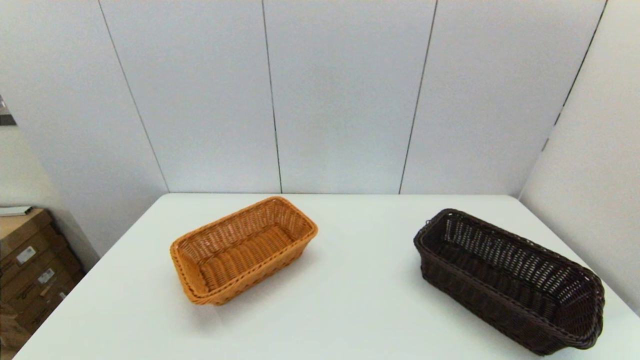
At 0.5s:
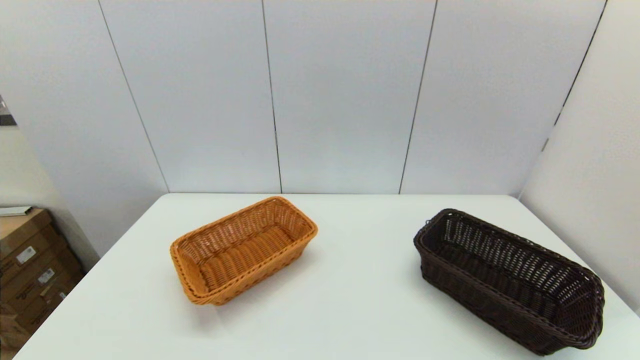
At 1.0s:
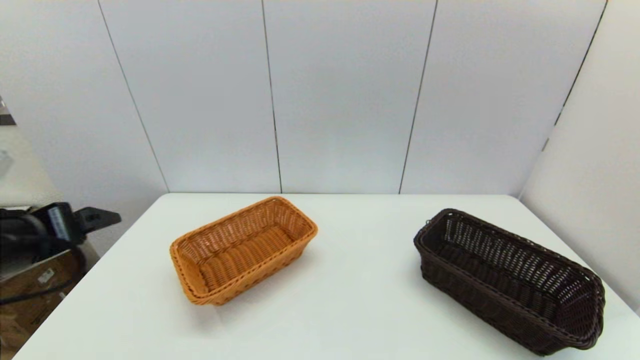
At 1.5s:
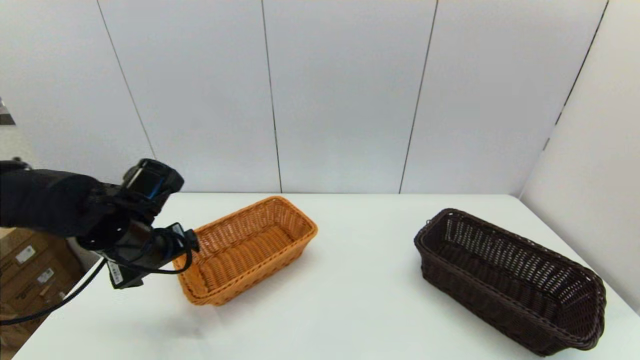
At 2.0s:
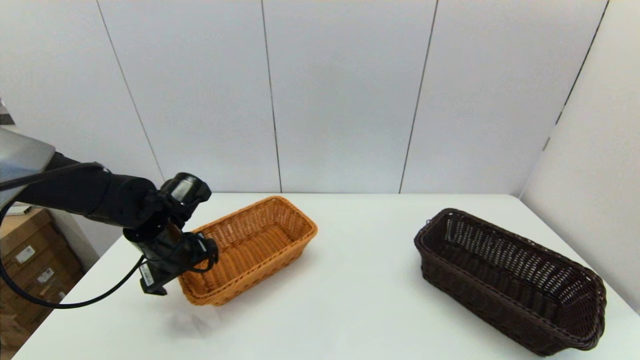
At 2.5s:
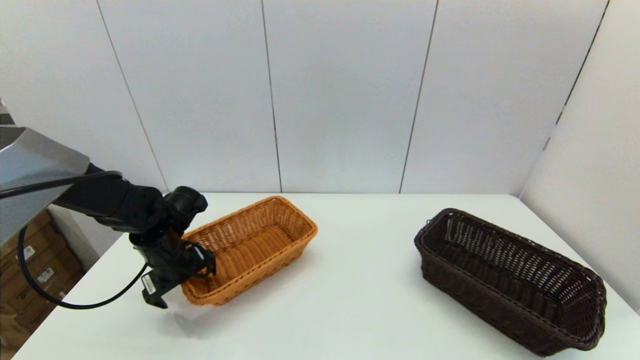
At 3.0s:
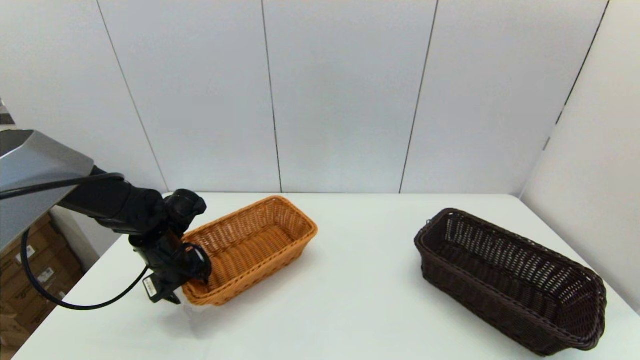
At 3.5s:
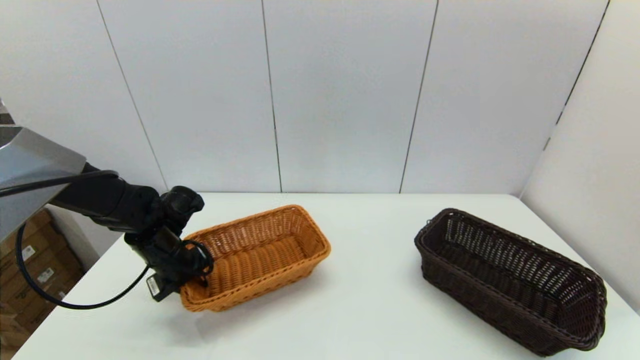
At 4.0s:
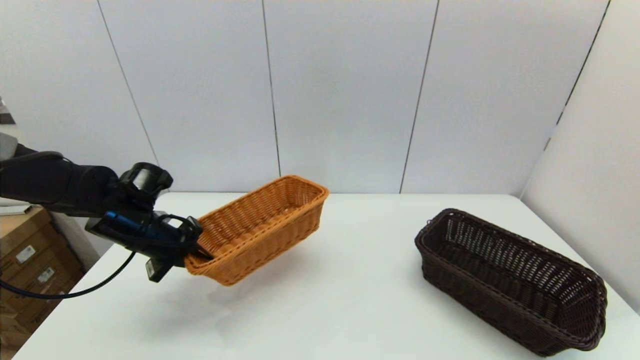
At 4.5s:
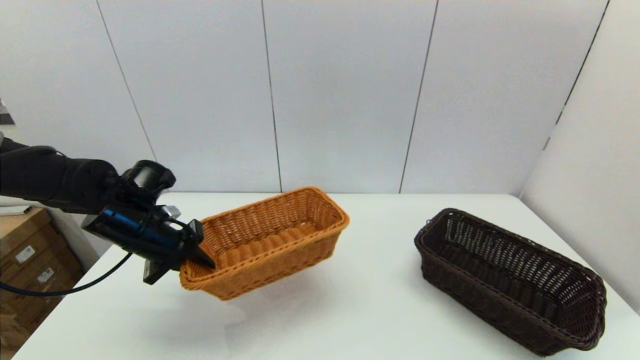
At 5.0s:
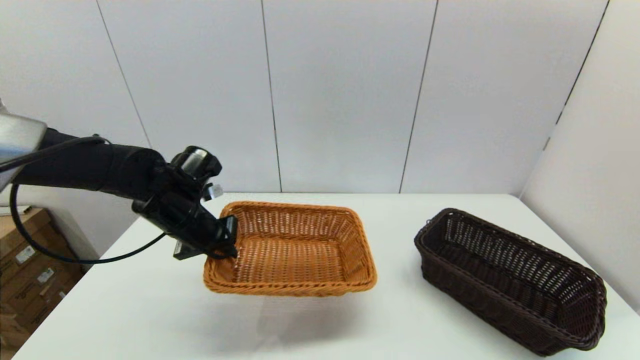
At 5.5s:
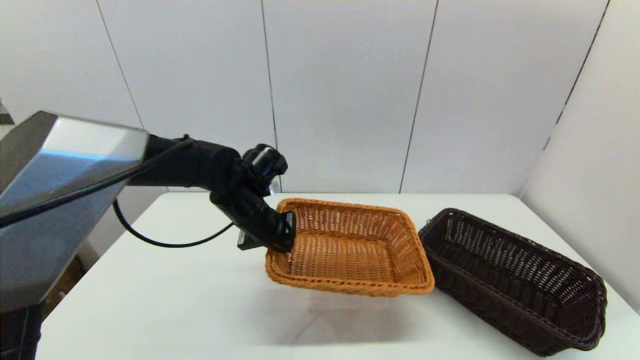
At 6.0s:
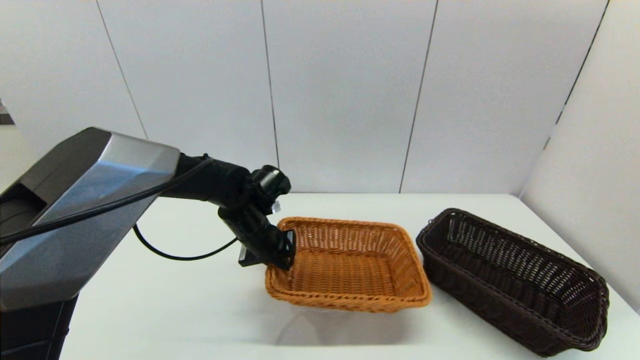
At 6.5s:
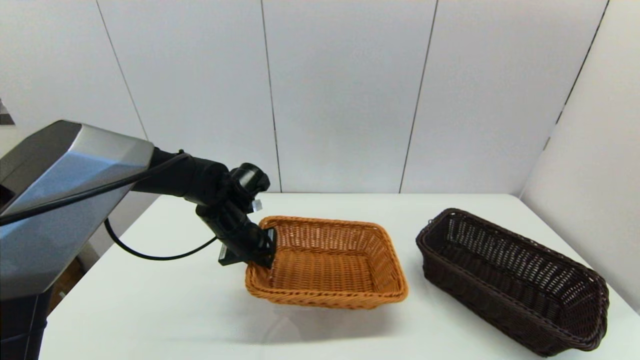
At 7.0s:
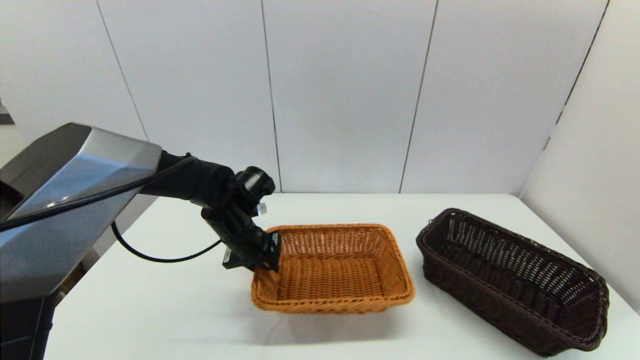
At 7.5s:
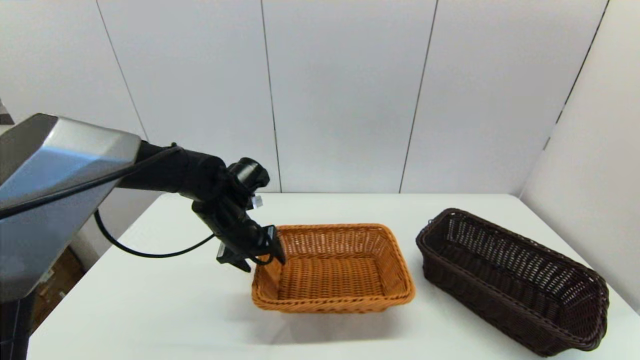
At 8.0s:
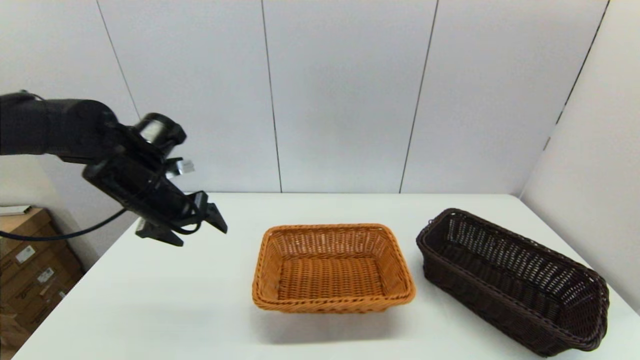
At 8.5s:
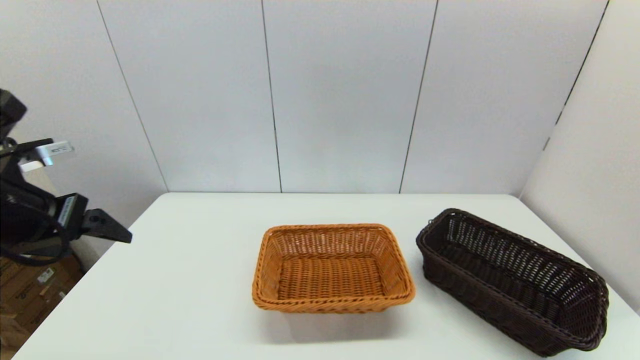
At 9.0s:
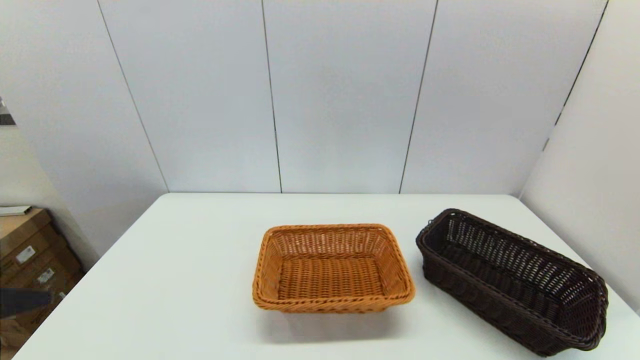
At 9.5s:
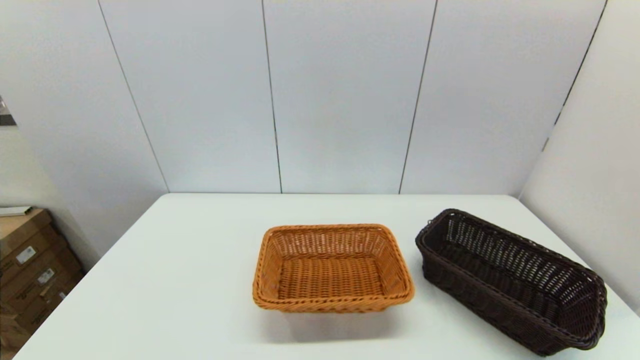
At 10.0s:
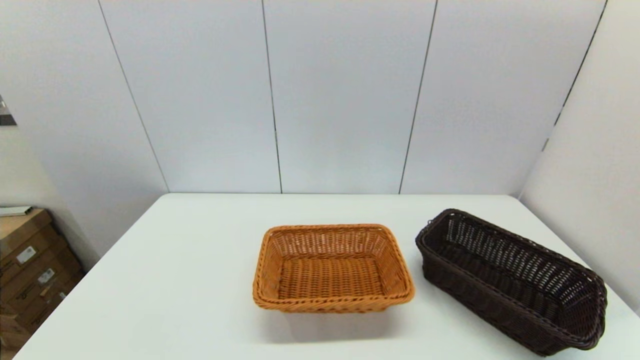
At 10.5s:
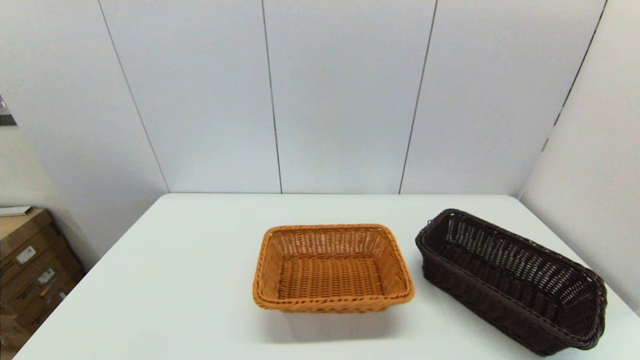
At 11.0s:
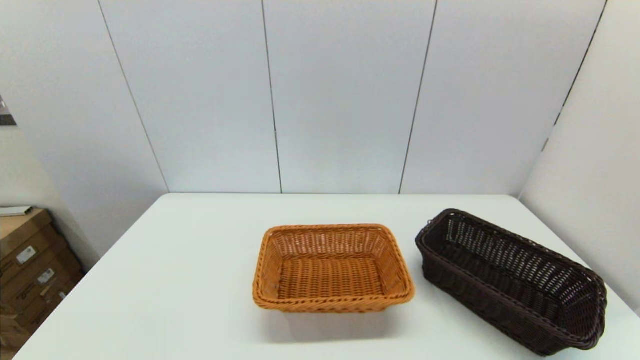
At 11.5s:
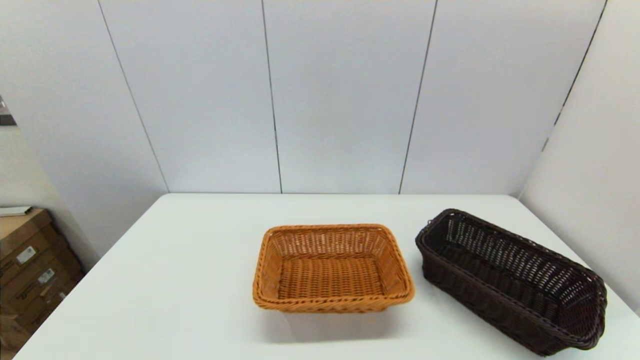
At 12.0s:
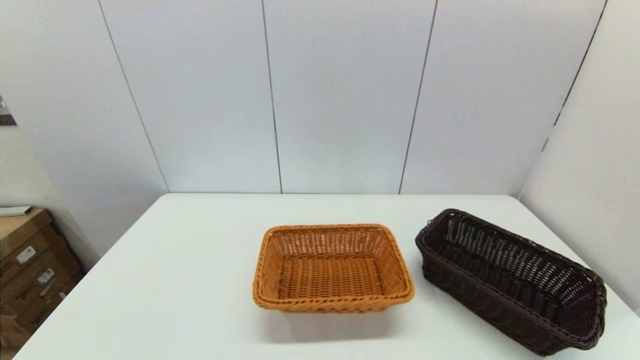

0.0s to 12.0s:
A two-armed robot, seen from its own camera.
Task of the whole recording: stack a basket on top of another basket.
Step, 0.0s to 3.5s: Grasp the light basket with the left gripper.
Step, 4.0s to 7.5s: Place the light basket on the middle of the table with the left gripper.
0.0s to 2.0s: The left gripper travels forward by some 35 cm.
2.0s to 4.0s: The left gripper closes.
4.0s to 6.0s: The left gripper goes approximately 15 cm to the right.
6.0s to 8.0s: The left gripper shifts roughly 15 cm to the left and upward, and opens up.
8.0s to 10.0s: The left gripper is displaced backward by roughly 40 cm.

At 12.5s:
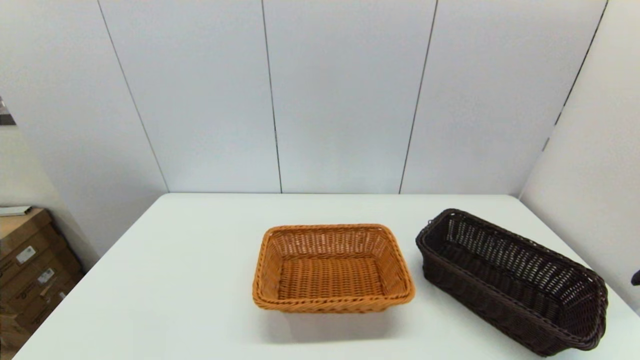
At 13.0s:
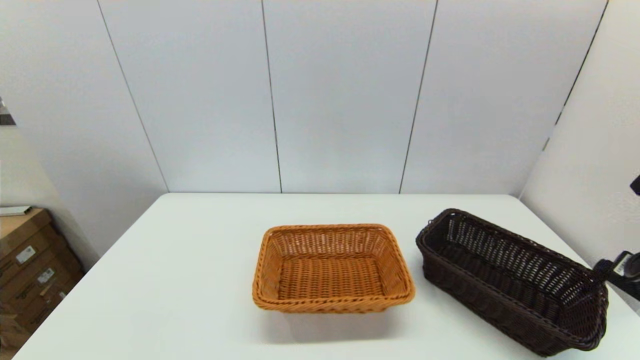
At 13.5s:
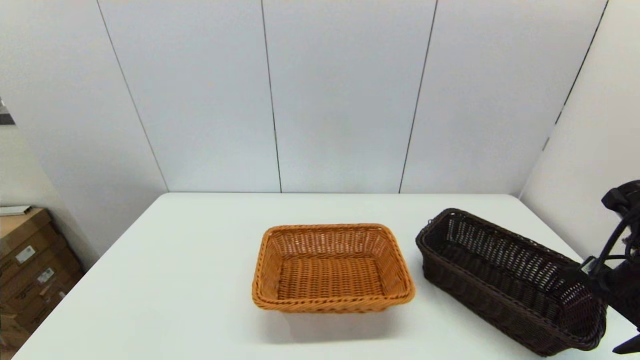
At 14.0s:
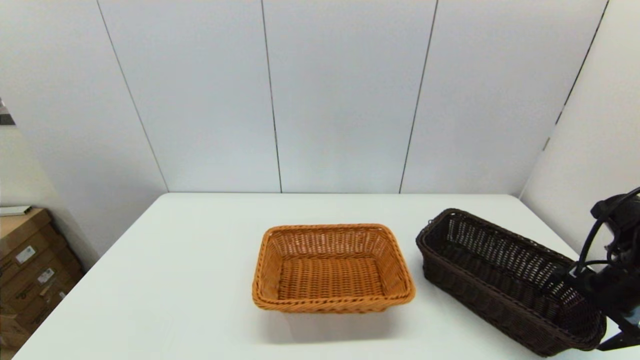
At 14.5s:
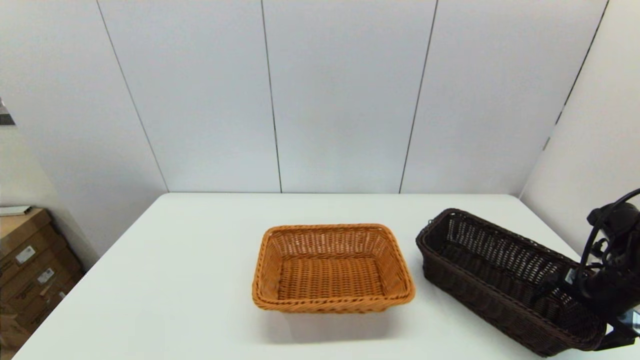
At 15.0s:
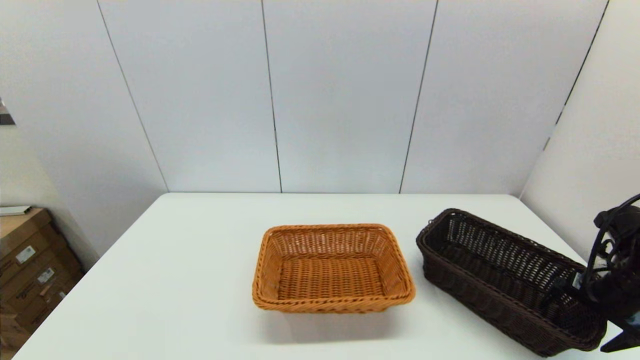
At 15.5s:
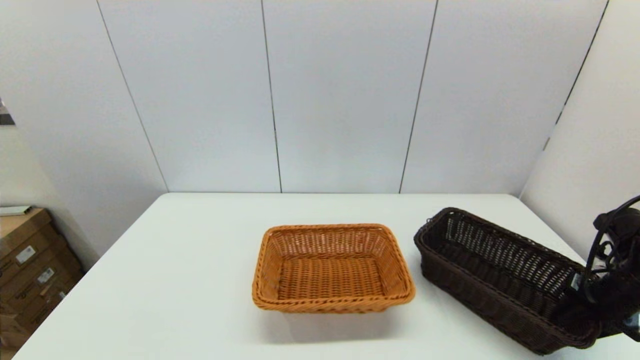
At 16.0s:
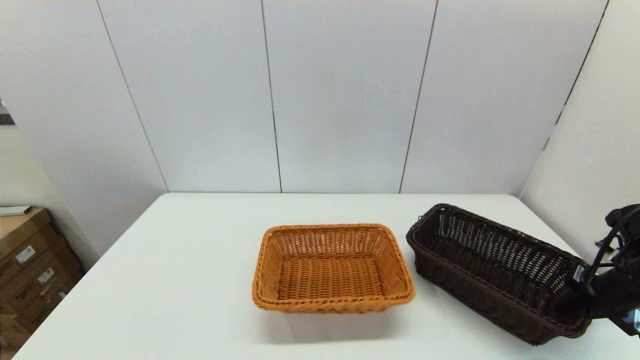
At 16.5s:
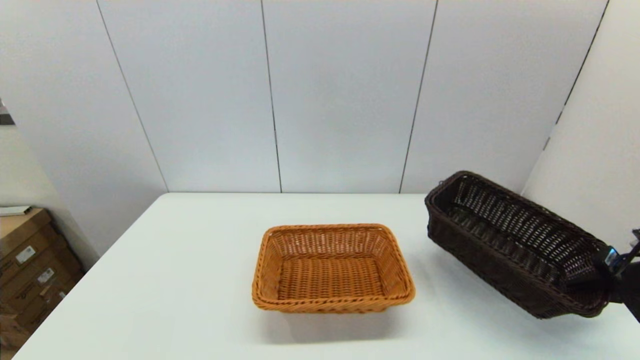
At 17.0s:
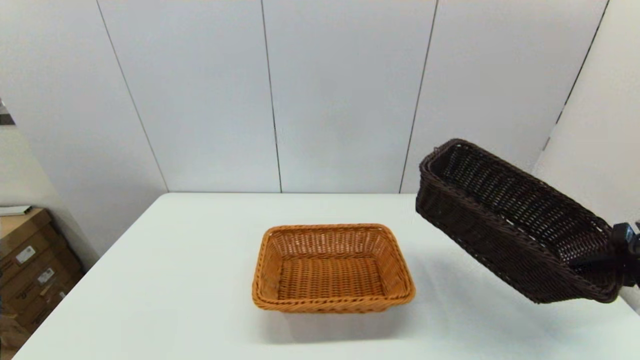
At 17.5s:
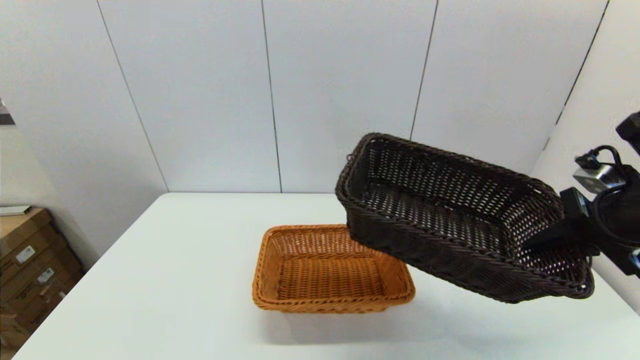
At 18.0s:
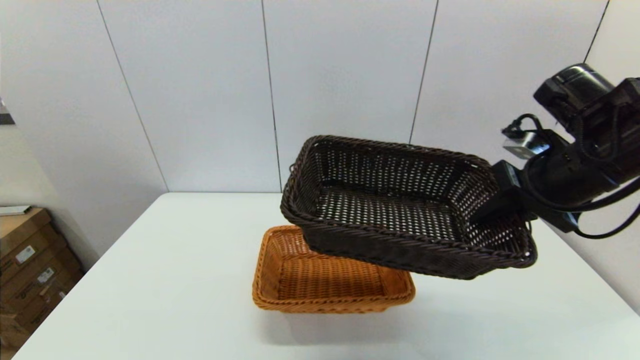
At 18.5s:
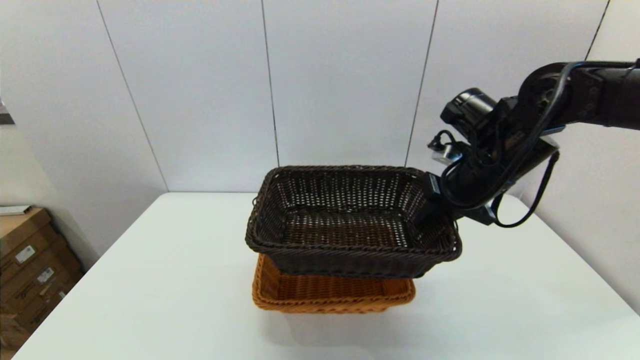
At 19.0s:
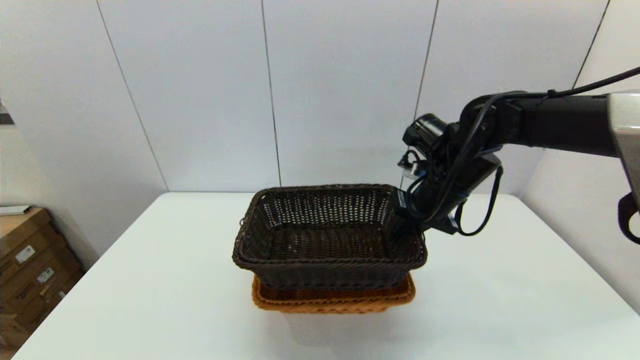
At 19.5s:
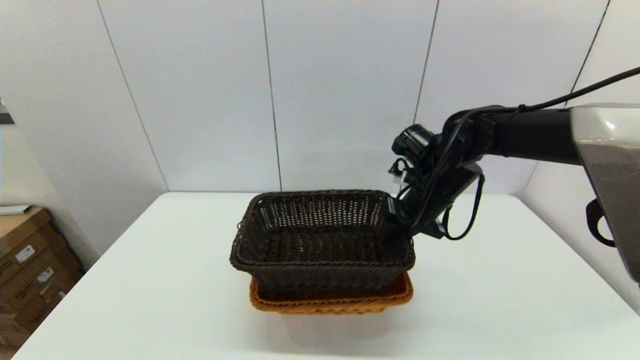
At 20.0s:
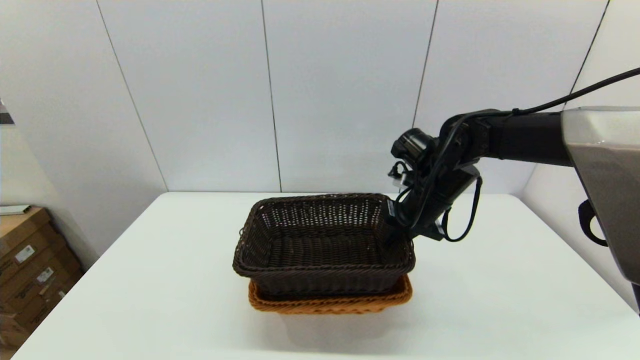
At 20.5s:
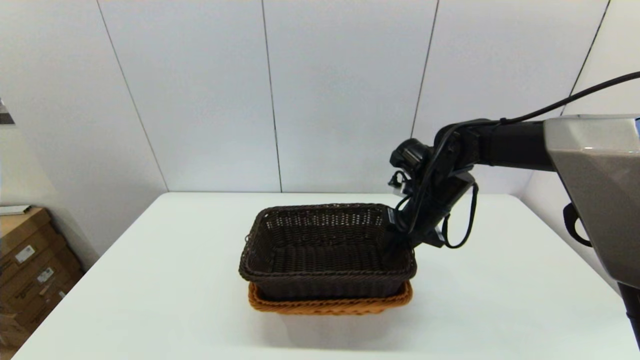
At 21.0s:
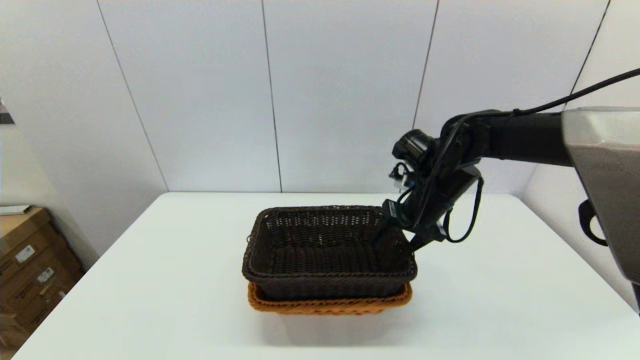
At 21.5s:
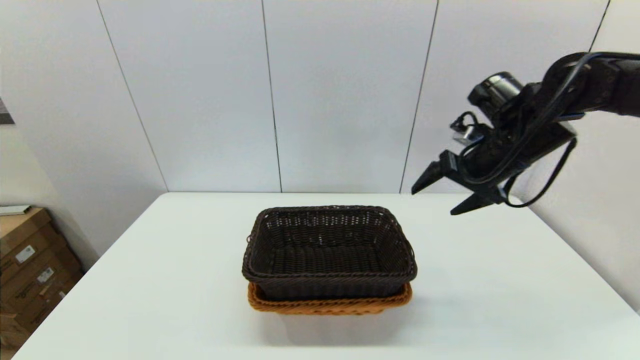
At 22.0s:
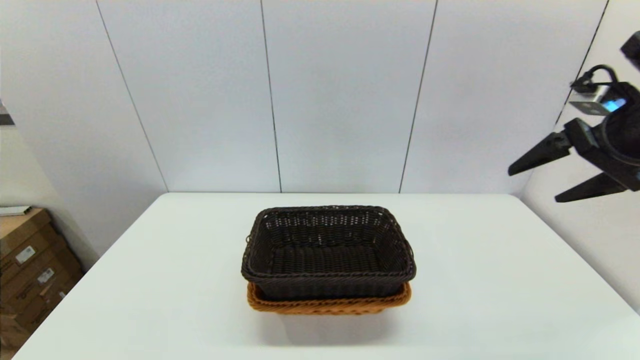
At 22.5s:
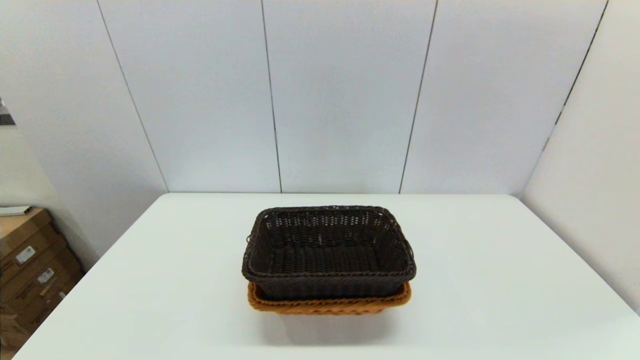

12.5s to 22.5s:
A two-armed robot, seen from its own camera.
Task of the whole recording: stack a basket on top of another basket.
Step, 12.5s to 15.5s: Grasp the dark basket with the right gripper.
Step, 16.0s to 21.0s: Place the dark basket into the light color basket with the right gripper.
12.5s to 14.5s: The right gripper goes approximately 20 cm downward and forward.
14.5s to 16.5s: The right gripper ends up roughly 5 cm from where it was, and closes its fingers.
16.5s to 18.5s: The right gripper heads to the left and upward, covering approximately 30 cm.
18.5s to 20.5s: The right gripper travels downward by roughly 10 cm.
20.5s to 22.5s: The right gripper heads backward, upward and to the right, covering roughly 40 cm, and opens.
